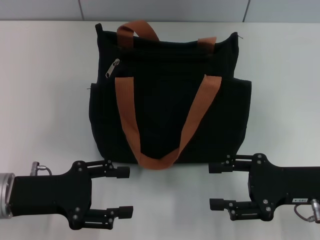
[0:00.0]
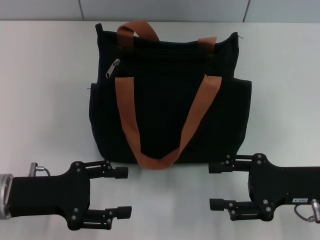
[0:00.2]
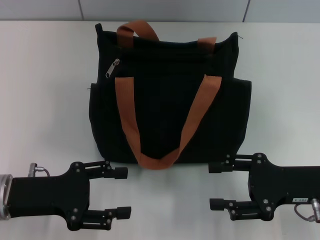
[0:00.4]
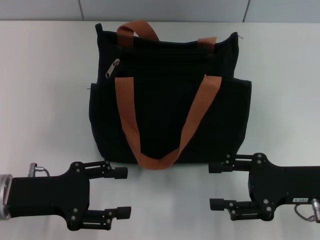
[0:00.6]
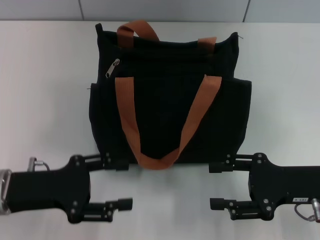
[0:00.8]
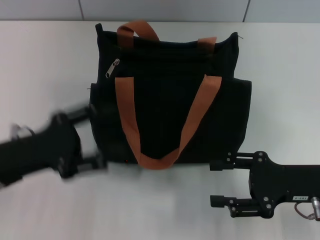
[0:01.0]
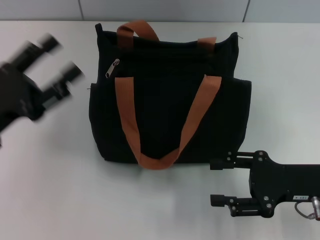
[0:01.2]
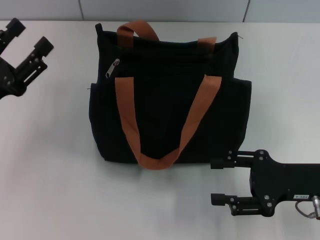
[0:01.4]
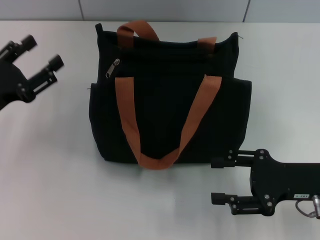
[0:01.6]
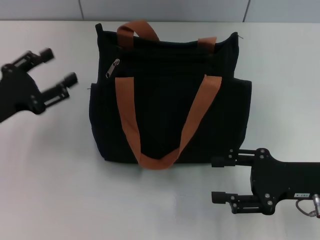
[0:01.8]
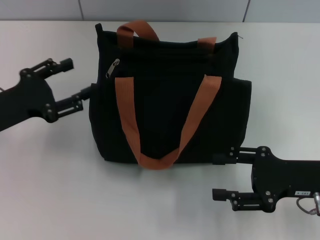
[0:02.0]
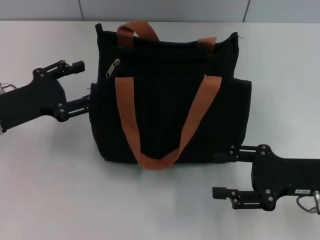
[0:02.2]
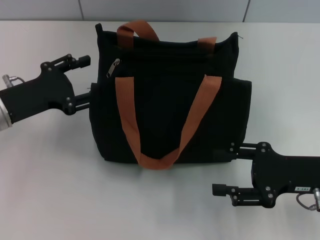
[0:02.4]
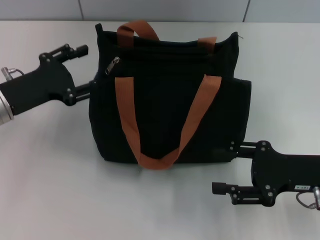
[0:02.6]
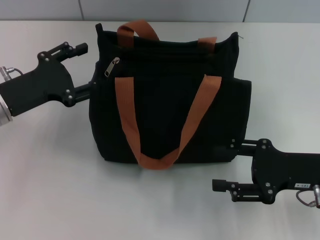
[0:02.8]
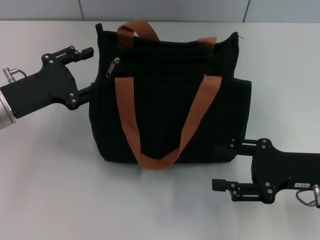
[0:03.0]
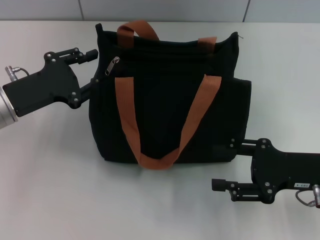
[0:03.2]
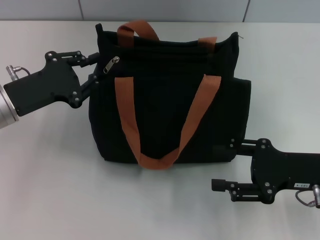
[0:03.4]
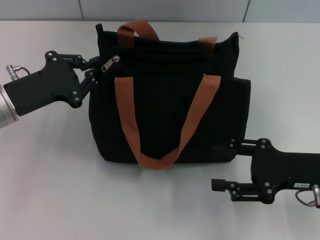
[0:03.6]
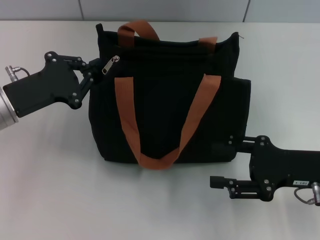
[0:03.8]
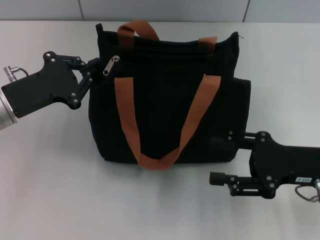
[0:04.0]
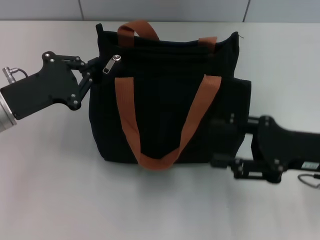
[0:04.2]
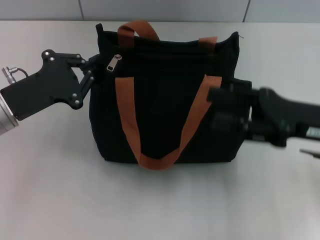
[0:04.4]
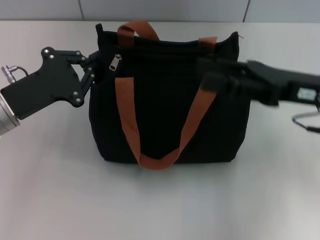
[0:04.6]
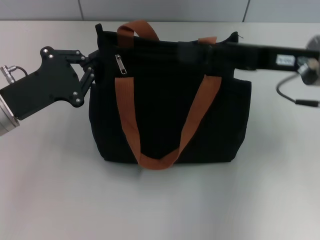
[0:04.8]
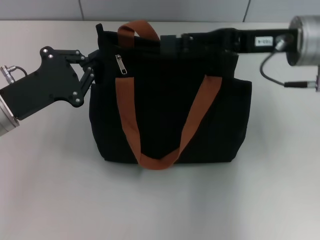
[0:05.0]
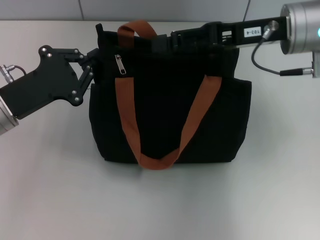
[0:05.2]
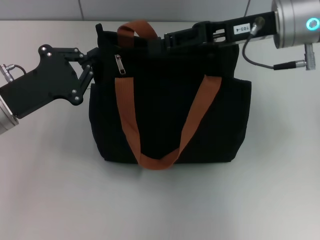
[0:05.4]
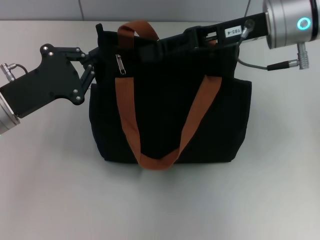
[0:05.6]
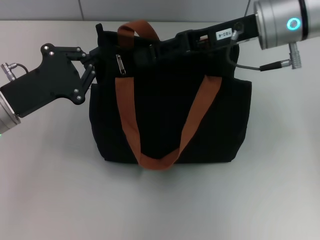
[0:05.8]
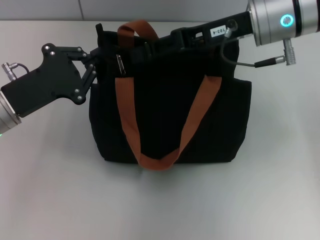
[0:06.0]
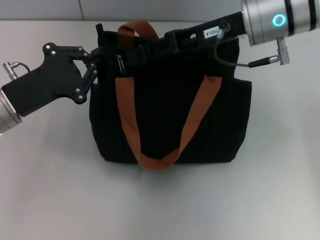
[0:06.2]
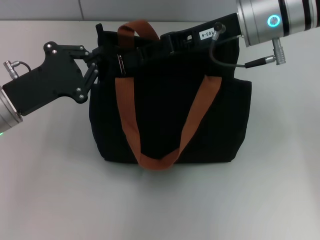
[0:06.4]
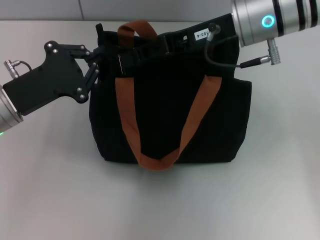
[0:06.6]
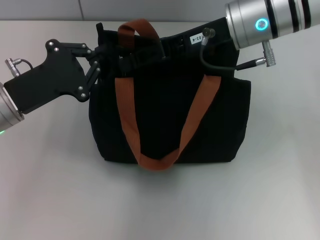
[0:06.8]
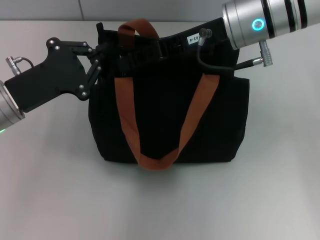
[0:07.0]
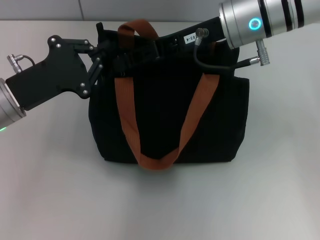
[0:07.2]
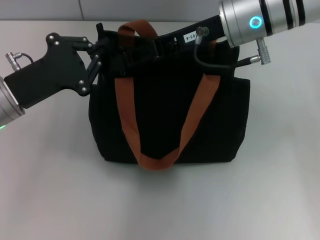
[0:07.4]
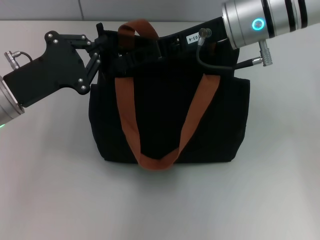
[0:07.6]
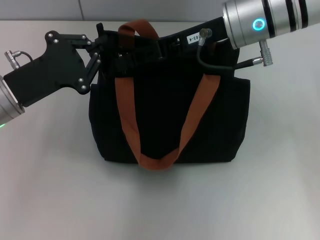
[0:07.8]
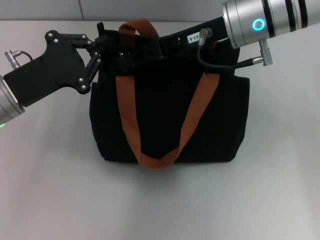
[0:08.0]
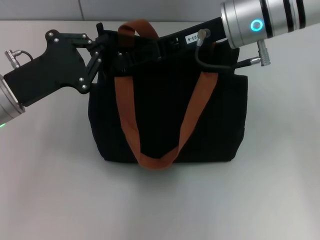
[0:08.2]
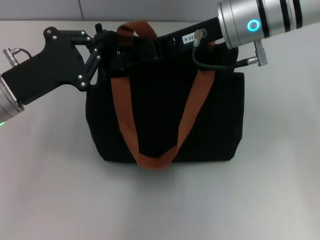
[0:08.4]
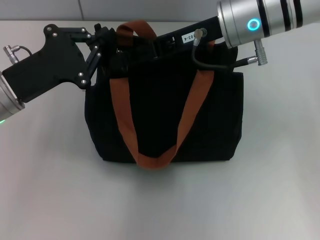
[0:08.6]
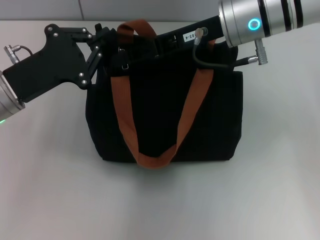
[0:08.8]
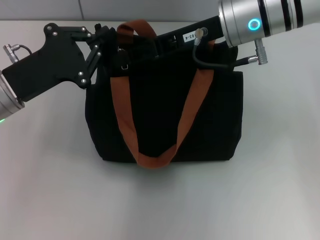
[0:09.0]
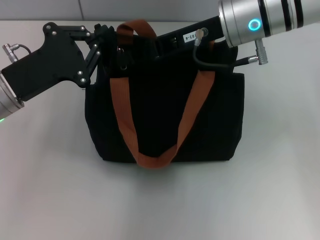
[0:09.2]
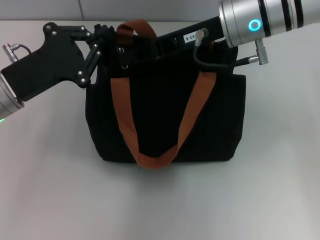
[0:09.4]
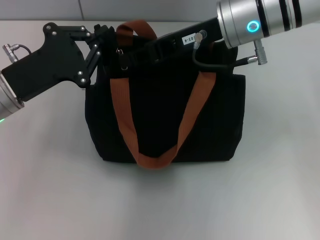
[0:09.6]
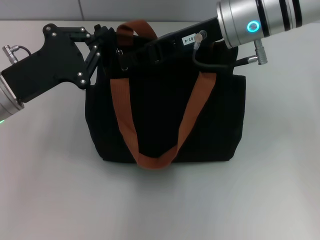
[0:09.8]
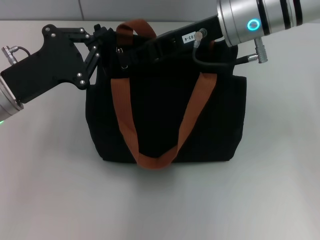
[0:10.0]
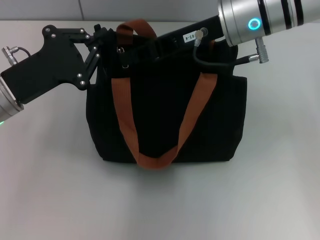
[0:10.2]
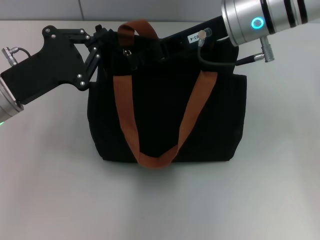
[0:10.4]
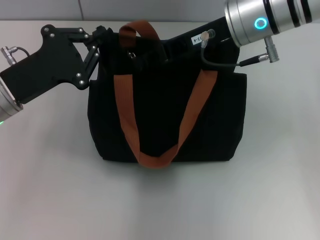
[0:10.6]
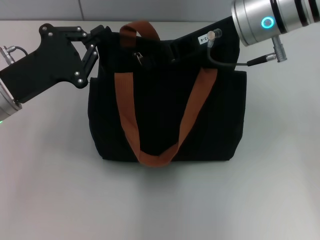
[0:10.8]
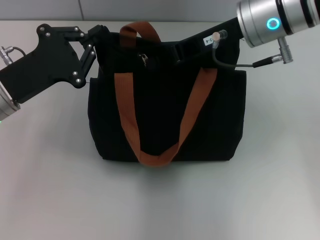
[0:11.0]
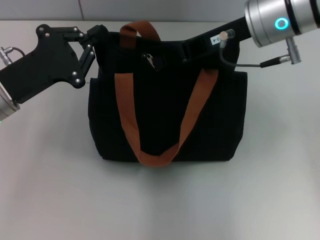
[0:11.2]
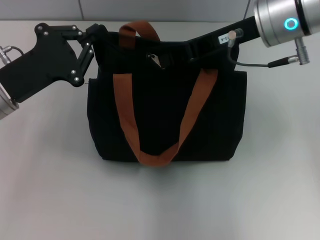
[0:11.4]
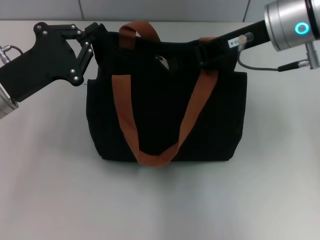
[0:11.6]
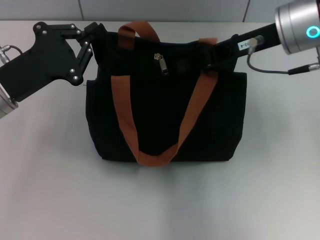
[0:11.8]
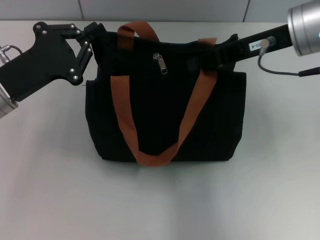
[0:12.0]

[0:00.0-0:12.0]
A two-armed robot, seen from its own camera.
0:00.0 to 0:01.6: The left gripper travels to the left by roughly 5 cm.
0:01.6 to 0:03.0: The left gripper ends up approximately 5 cm from where it was.
0:03.0 to 0:04.4: The left gripper closes its fingers; the right gripper is displaced upward by some 5 cm.
0:04.4 to 0:06.0: The right gripper travels forward, to the left and upward by approximately 20 cm.
0:06.0 to 0:07.6: The grippers stay close to where they were, moving slightly.
0:07.6 to 0:09.0: The two grippers keep their place.
0:09.0 to 0:10.4: The right gripper closes its fingers.
0:10.4 to 0:12.0: The right gripper travels to the right by some 5 cm.

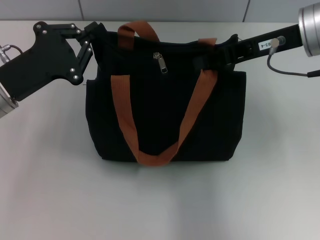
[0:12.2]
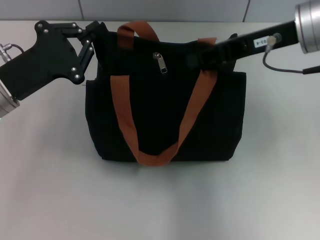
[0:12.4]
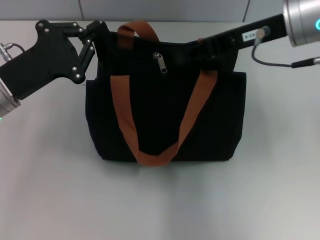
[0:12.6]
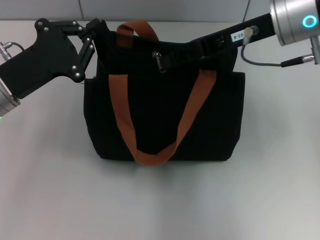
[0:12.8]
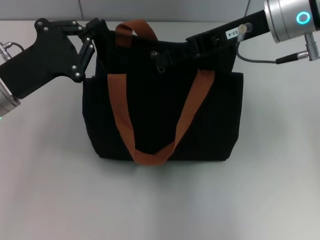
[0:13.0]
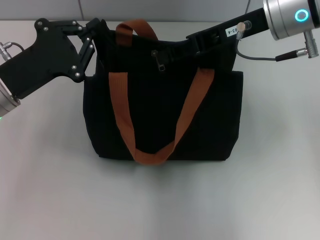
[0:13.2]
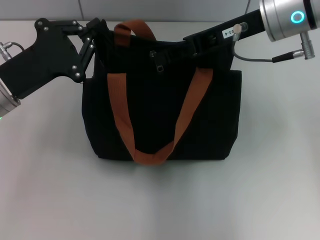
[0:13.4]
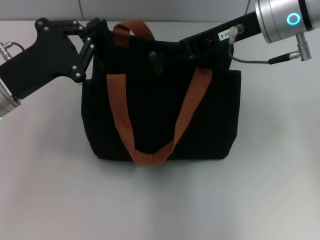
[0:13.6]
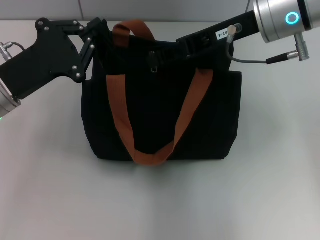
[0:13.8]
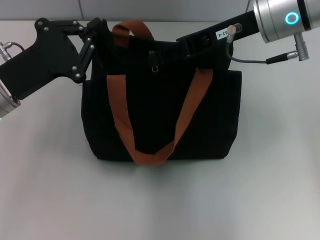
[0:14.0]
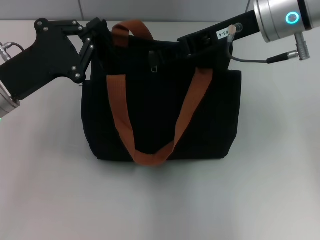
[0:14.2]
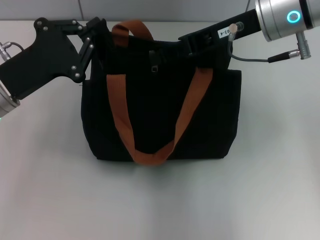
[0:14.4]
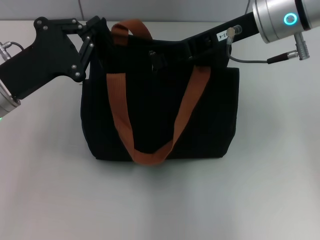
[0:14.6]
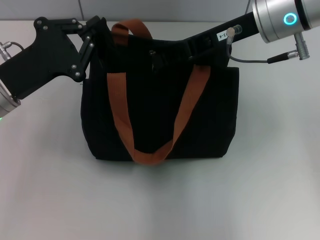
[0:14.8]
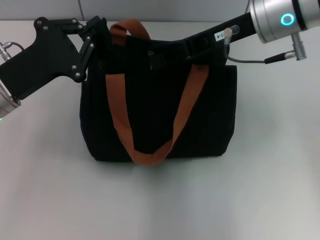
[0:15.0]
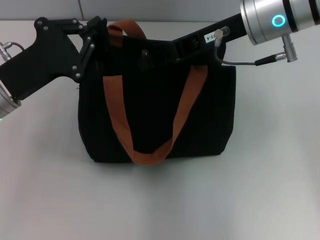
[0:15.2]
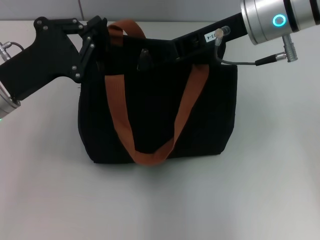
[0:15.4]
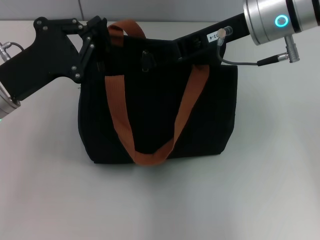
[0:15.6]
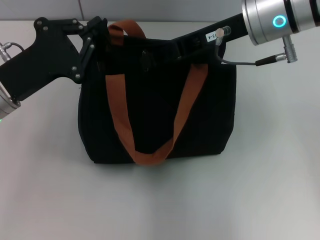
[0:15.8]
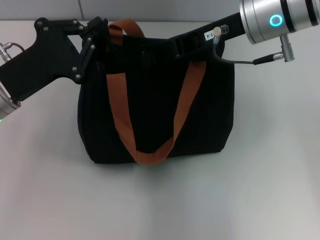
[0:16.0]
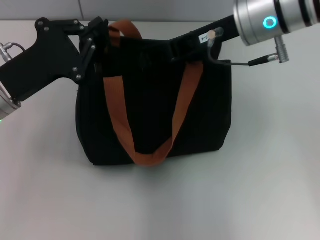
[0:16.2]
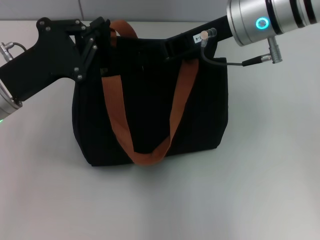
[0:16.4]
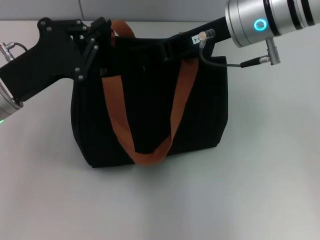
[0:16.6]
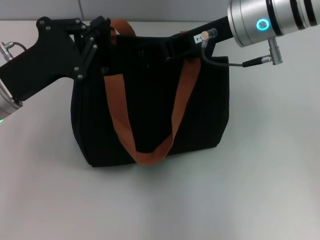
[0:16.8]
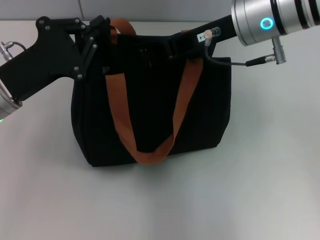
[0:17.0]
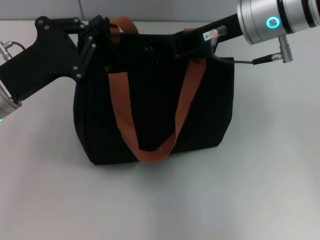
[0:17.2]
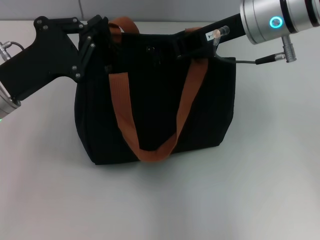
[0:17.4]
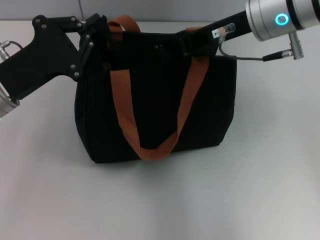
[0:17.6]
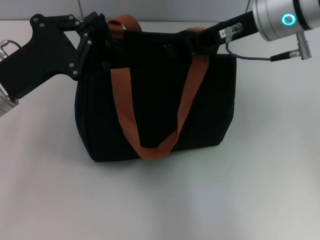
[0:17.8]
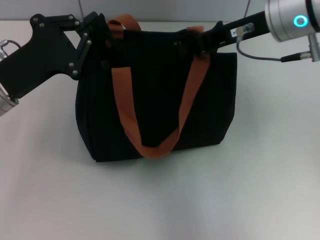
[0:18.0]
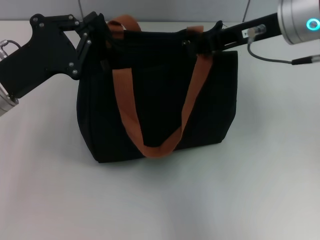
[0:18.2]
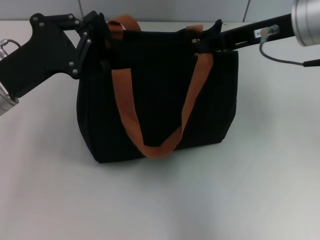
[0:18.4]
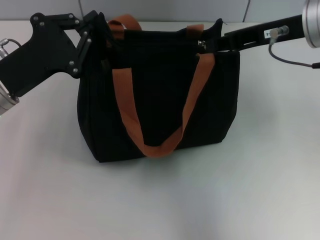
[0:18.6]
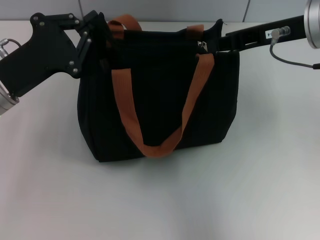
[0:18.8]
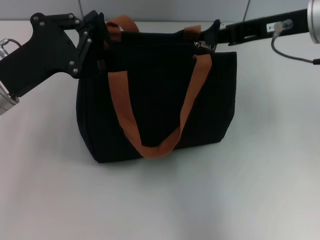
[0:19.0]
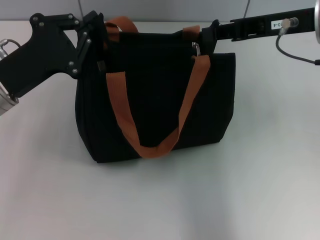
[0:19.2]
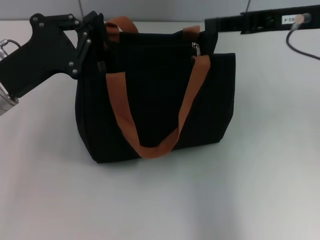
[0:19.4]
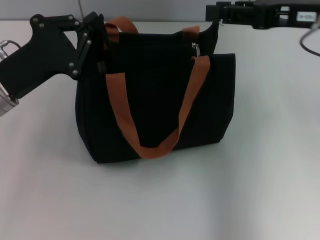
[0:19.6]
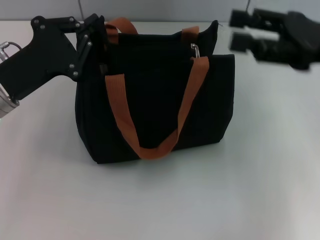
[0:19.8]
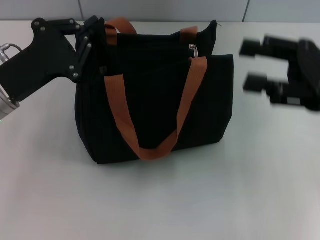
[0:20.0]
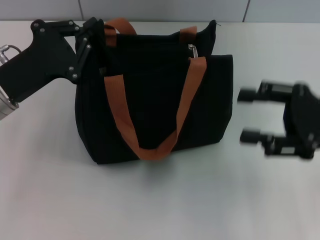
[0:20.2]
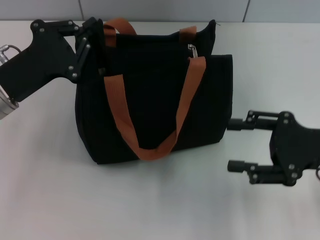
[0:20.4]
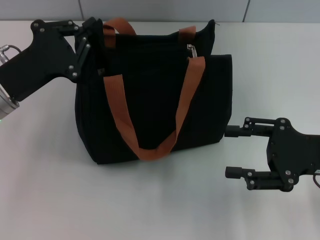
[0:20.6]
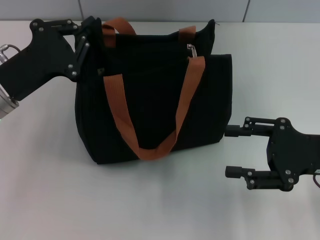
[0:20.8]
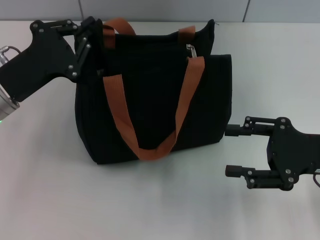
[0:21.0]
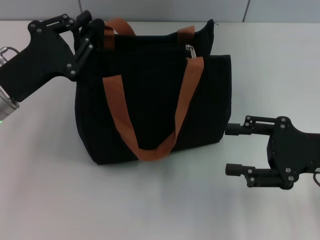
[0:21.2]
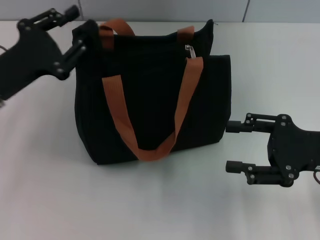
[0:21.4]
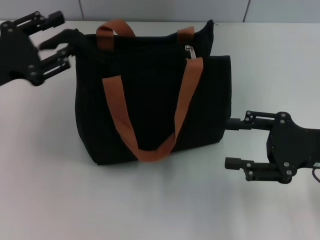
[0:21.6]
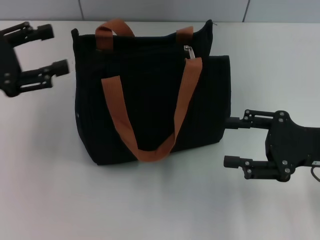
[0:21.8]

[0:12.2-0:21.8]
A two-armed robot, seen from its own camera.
Step, 0:12.2 to 0:19.2: Pull up the zipper with your right hand.
Step, 0:19.4 to 0:21.8: Grab the zipper with your left hand.
0:12.2 to 0:13.8: The right gripper is displaced to the left by about 5 cm, and opens its fingers.
0:13.8 to 0:17.0: The grippers make only small movements.
0:17.0 to 0:18.6: The right gripper is displaced to the right by some 5 cm.
0:18.6 to 0:20.2: The right gripper travels downward, to the right and backward by some 15 cm, and opens up.
0:20.2 to 0:21.8: The left gripper goes some 10 cm to the left and upward, and opens.

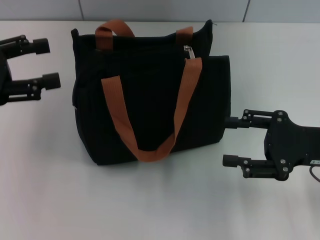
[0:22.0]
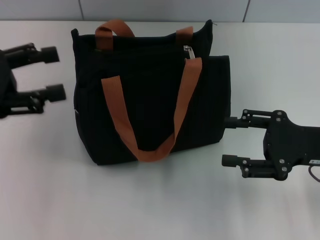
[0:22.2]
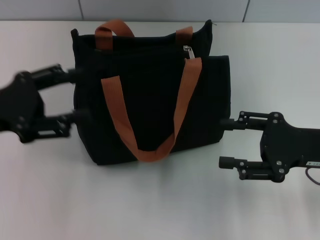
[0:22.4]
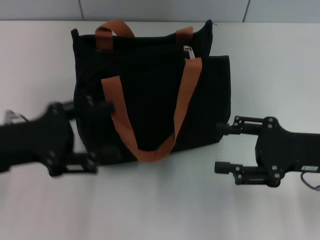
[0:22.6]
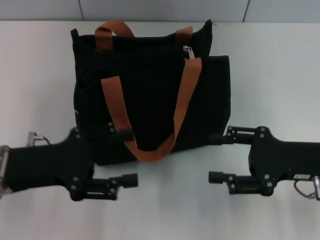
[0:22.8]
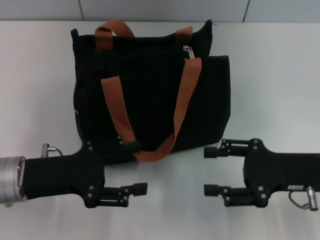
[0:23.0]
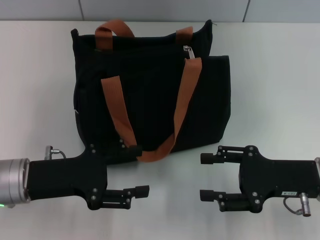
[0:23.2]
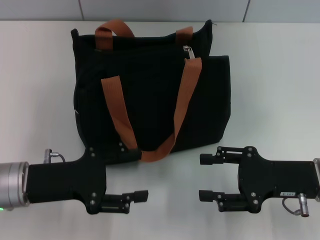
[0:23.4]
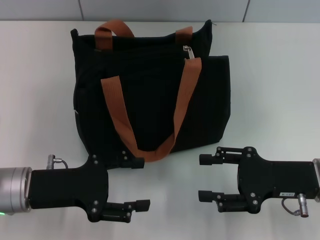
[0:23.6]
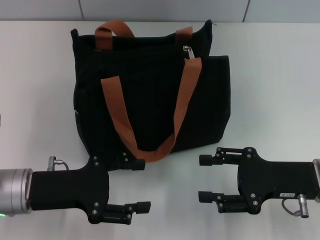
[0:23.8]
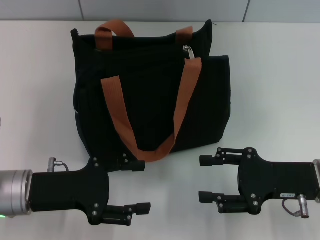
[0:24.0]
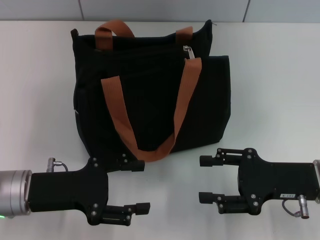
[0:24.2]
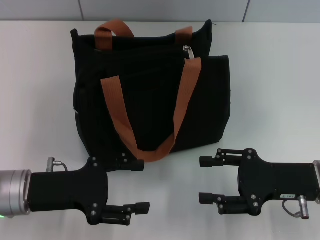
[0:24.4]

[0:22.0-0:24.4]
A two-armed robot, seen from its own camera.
0:22.0 to 0:23.2: The left gripper shifts some 15 cm downward and to the right. The right gripper changes place by some 5 cm.
0:23.2 to 0:24.4: The two grippers keep their place.
